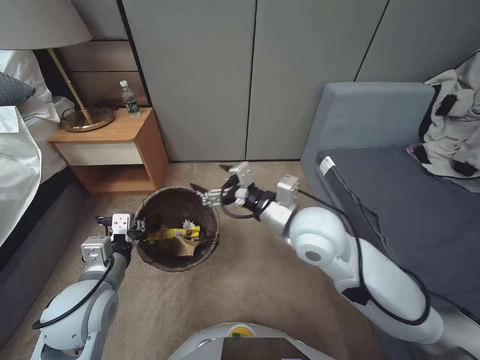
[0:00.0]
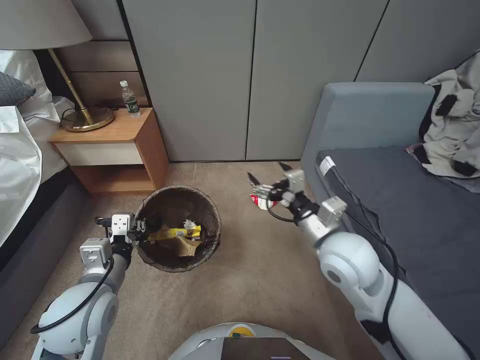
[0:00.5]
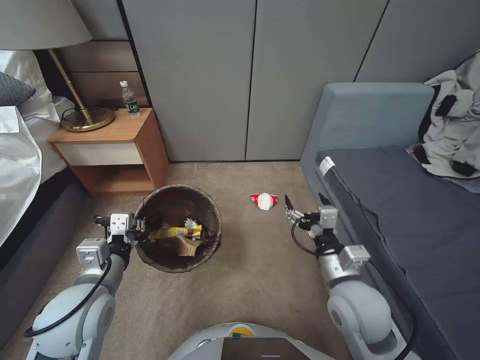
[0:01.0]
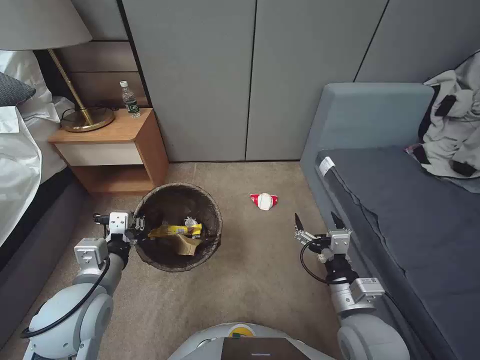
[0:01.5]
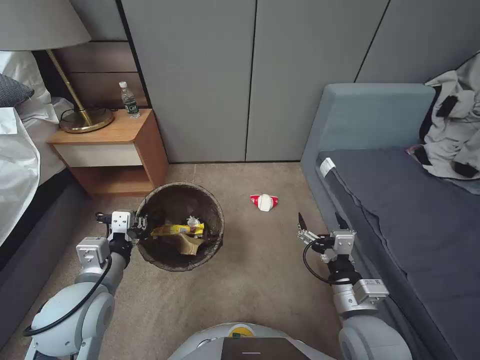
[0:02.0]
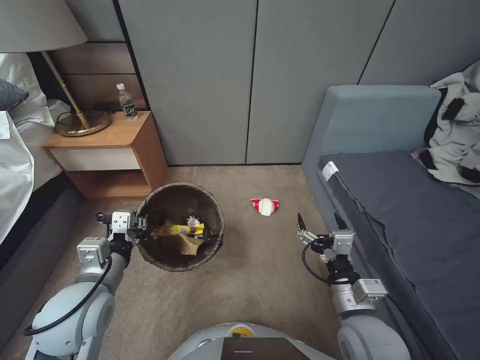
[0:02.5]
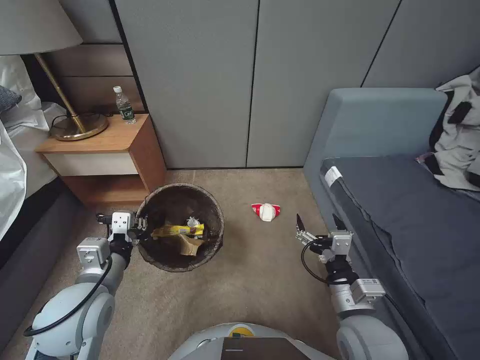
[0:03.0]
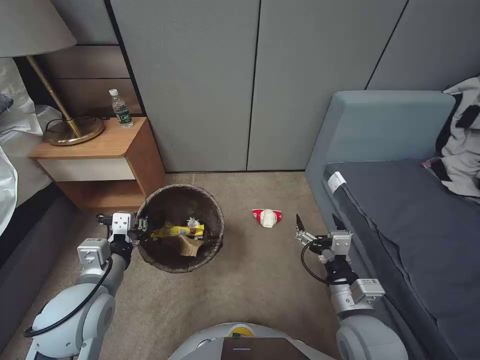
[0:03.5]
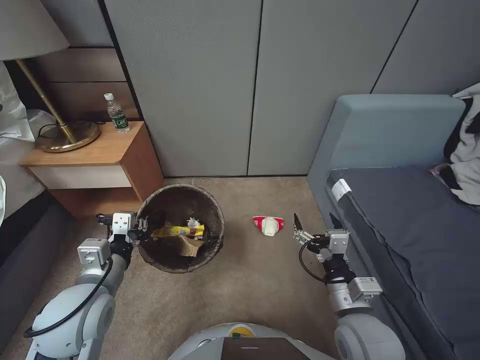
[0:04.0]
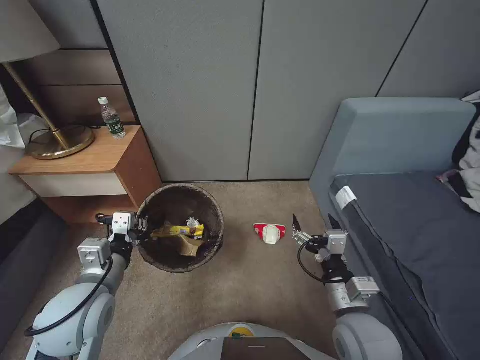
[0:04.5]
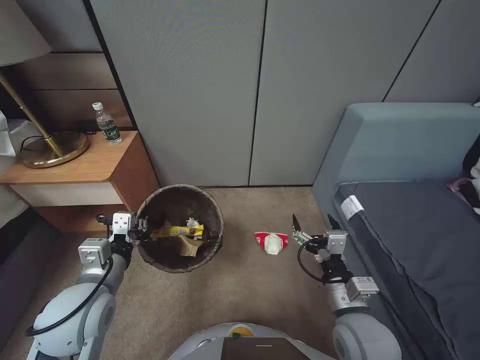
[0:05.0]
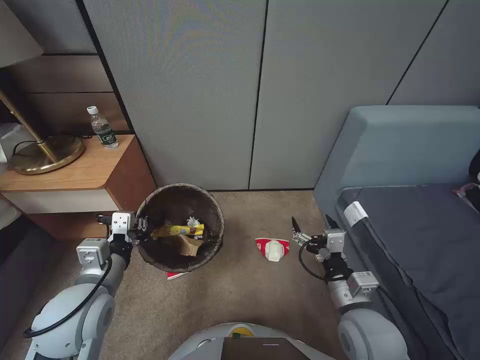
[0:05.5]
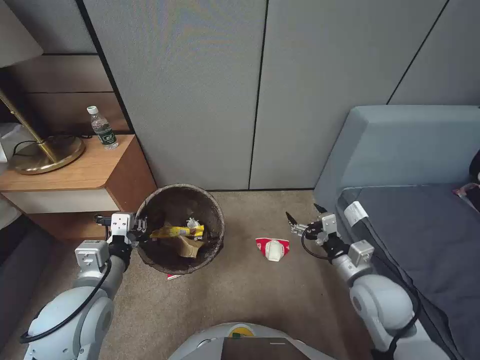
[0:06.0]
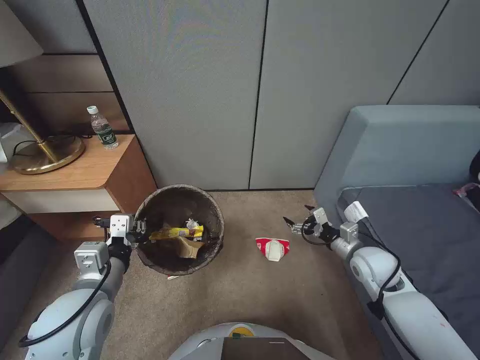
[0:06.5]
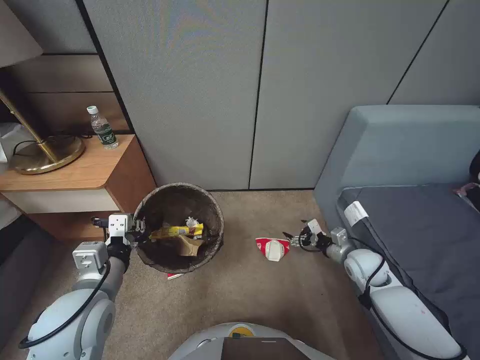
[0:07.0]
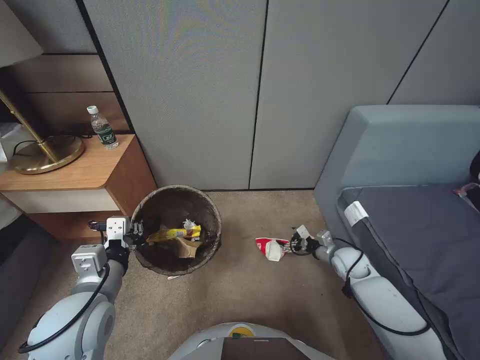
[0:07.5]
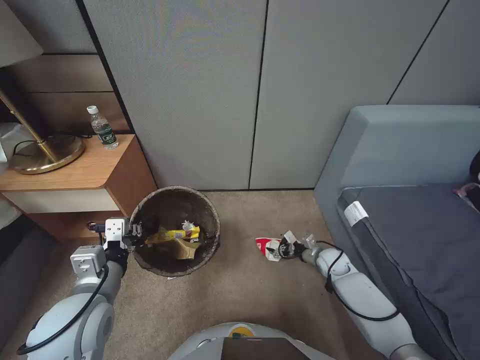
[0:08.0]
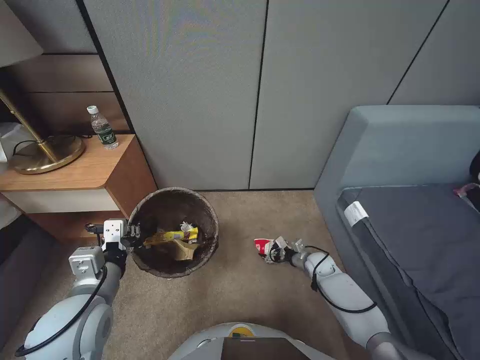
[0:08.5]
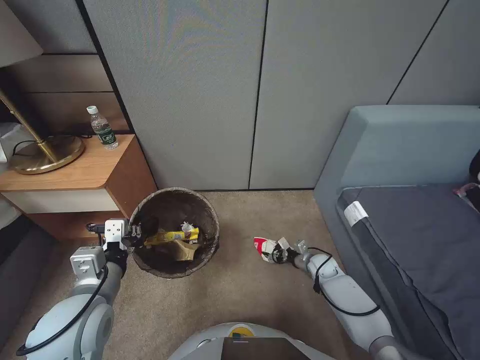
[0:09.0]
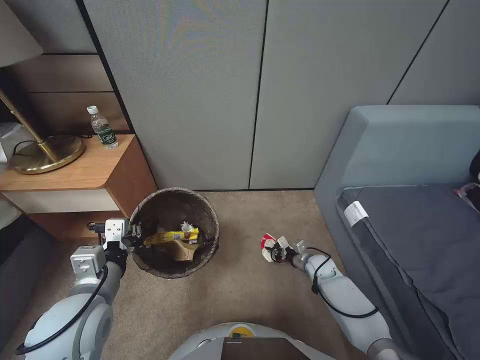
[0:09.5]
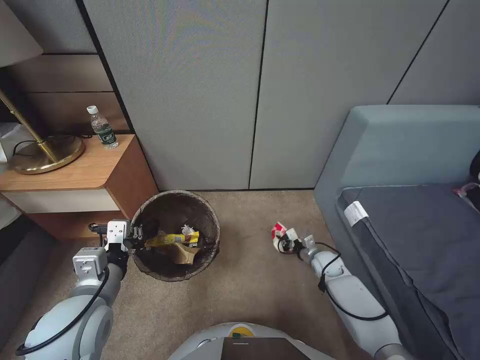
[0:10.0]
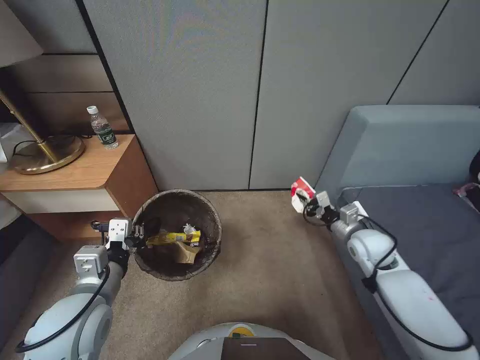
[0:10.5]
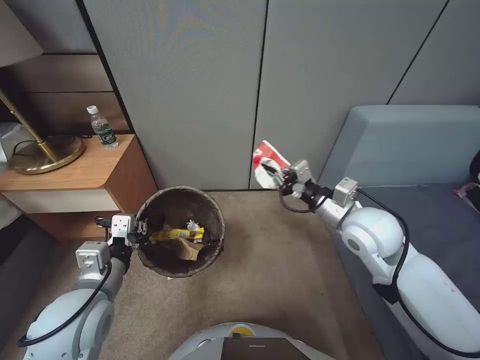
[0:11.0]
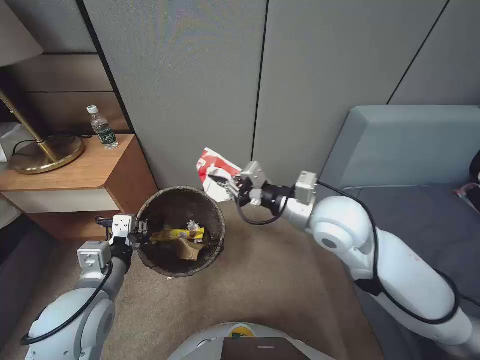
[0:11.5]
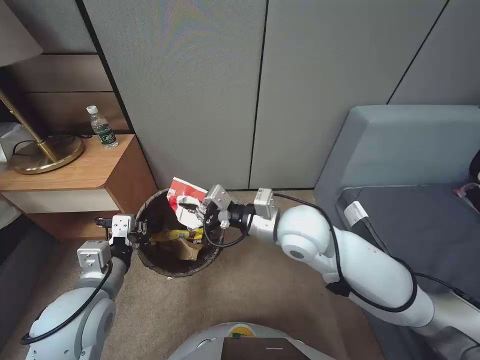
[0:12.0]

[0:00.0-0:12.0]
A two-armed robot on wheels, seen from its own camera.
Task of the whole recording: Pick up the trash bin, then pick up the garbage from the floor and place it into the trash bin.
0.0 to 2.0 s: The right gripper is displaced backward, downward and to the right by some 25 cm.
4.0 to 6.0 s: The right gripper goes some 5 cm forward and to the right.
6.0 to 8.0 s: The right gripper travels downward and forward by roughly 25 cm.
8.0 to 10.0 s: The right gripper closes its fingers.
10.0 to 12.0 s: The right gripper goes approximately 40 cm upward and to the left.

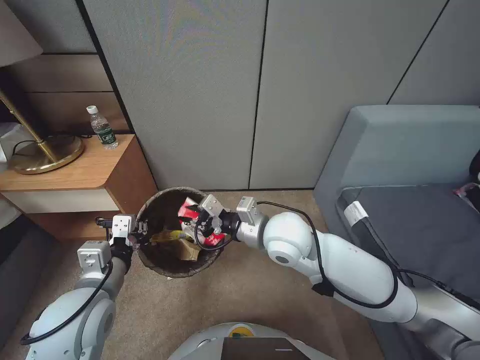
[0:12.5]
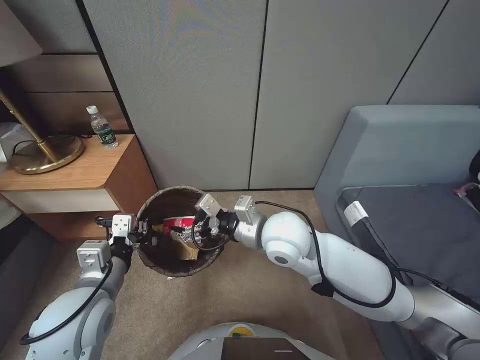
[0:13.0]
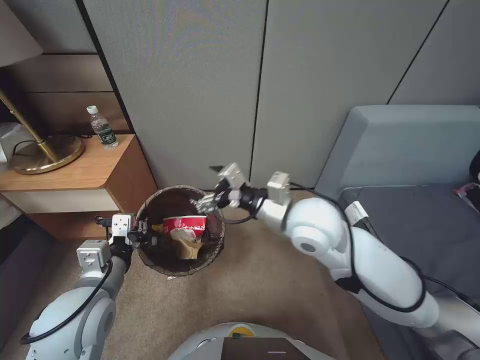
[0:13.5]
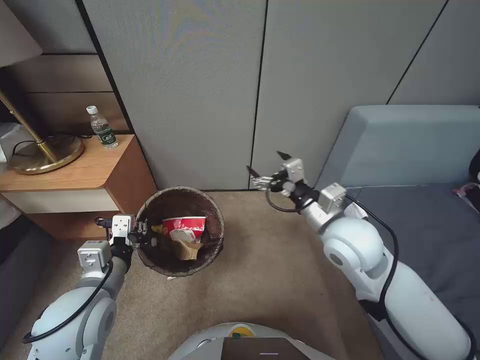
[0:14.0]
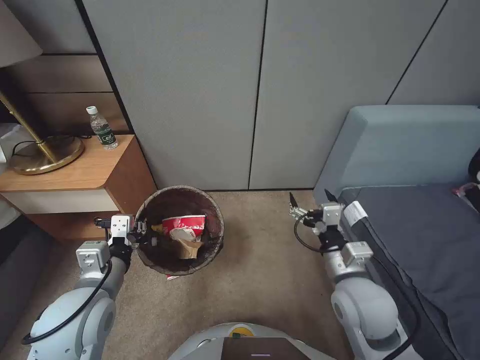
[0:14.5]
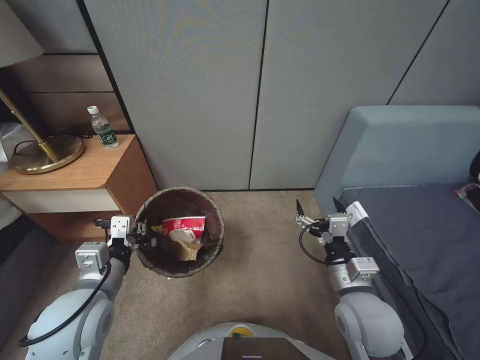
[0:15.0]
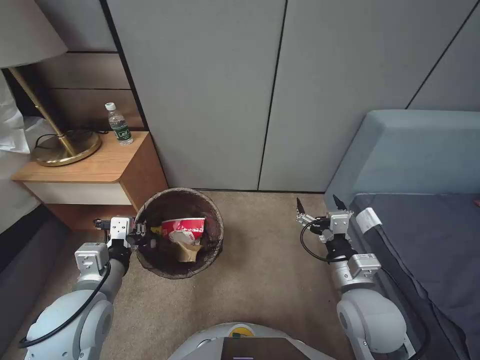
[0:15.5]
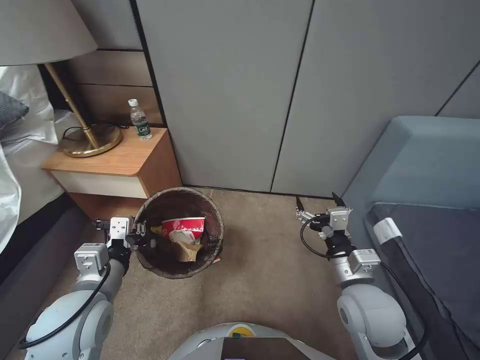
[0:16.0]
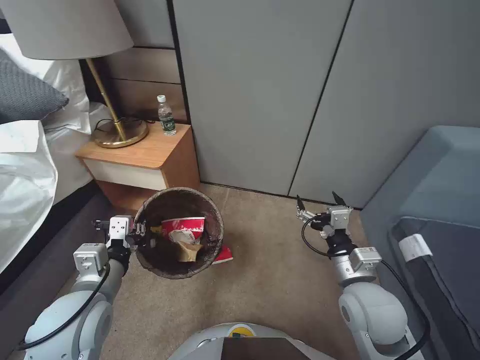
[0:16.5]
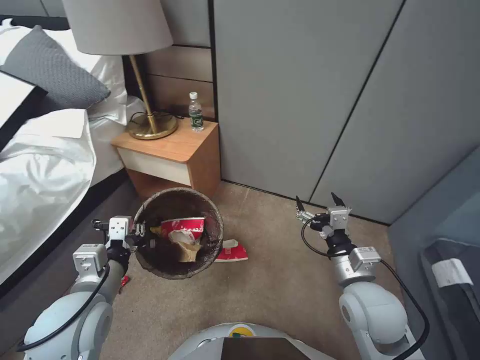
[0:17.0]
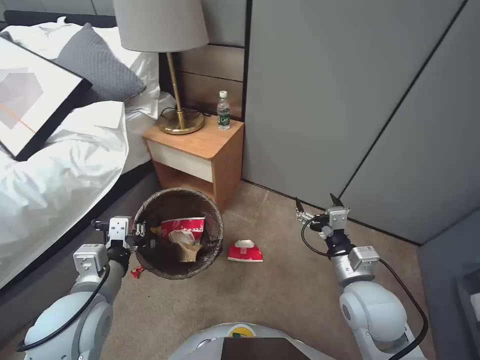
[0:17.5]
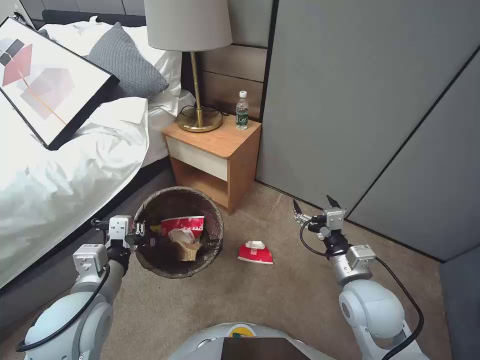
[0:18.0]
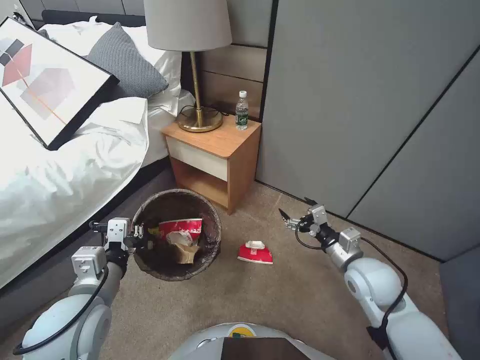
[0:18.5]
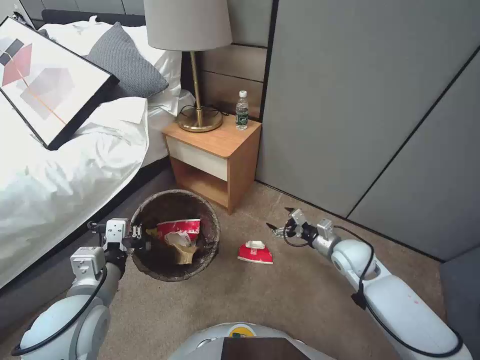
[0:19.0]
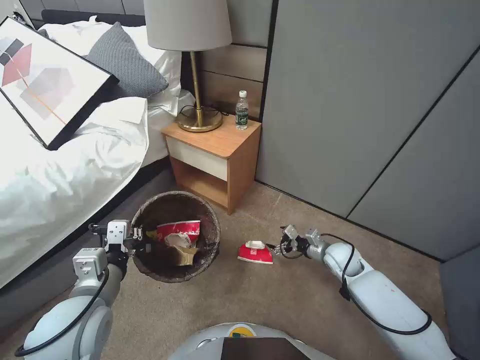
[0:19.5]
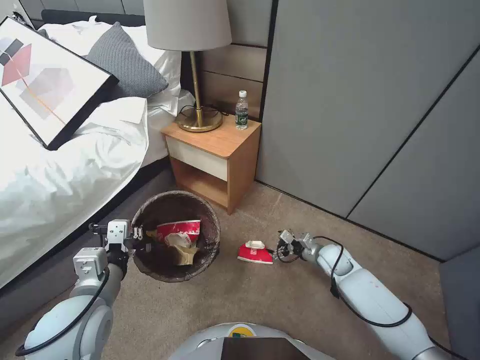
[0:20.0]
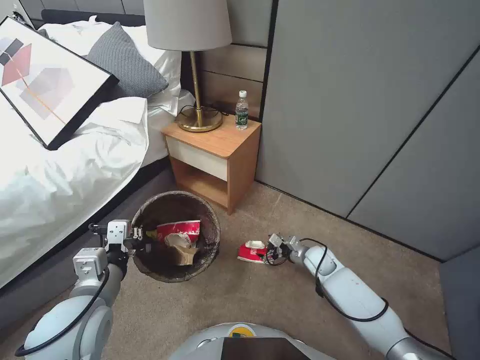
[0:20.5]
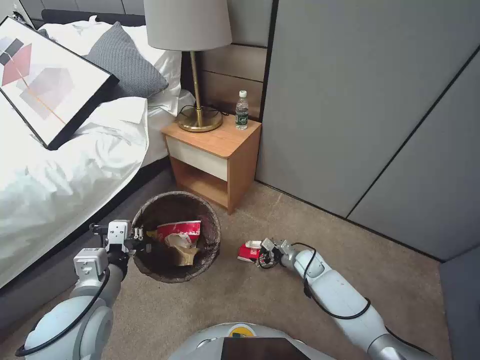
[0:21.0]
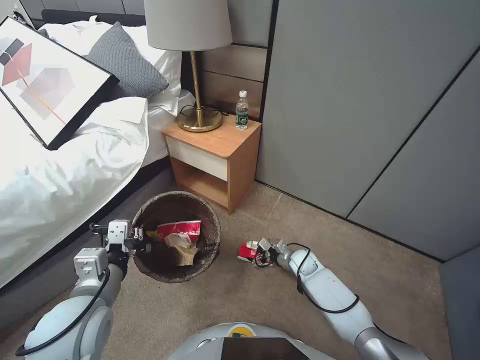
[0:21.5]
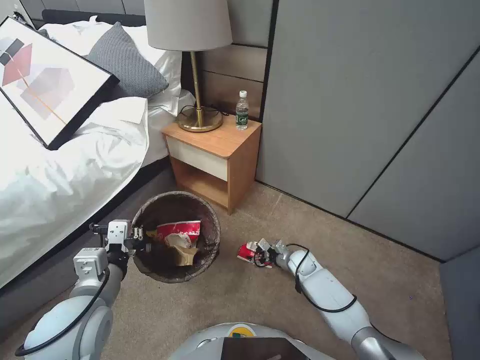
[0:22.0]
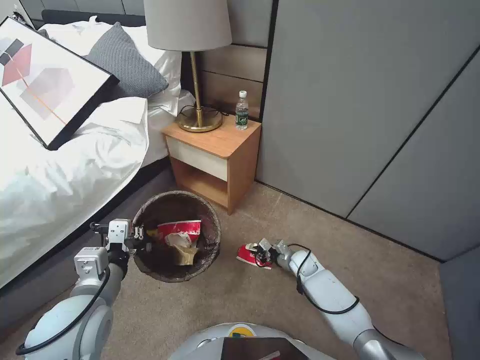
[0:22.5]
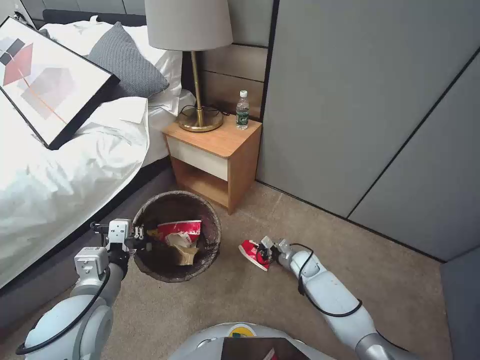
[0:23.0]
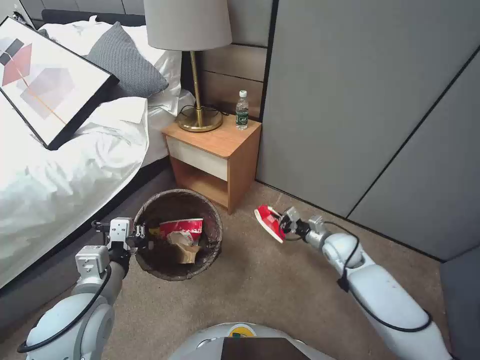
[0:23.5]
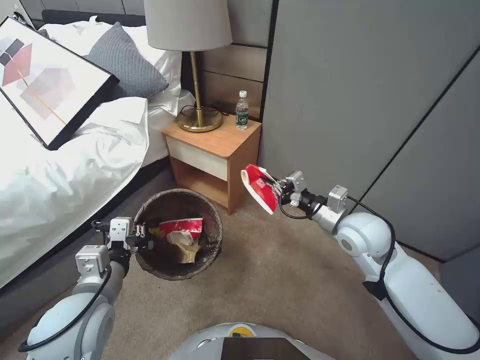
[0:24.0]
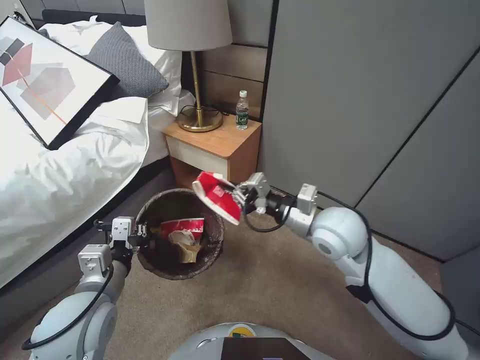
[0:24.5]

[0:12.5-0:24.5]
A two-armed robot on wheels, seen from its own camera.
Task of the whole recording: Pick up the trash bin, then pick up the garbage from the floor and place it into the trash bin.
12.5 to 14.5 s: The right gripper is displaced to the right, backward and downward by roughly 15 cm, and opens.
16.5 to 18.5 s: The right gripper moves forward, roughly 5 cm.
18.5 to 20.5 s: The right gripper travels downward and forward by approximately 20 cm.
20.5 to 22.5 s: The right gripper heads downward, covering some 5 cm, and closes up.
22.5 to 24.5 s: The right gripper heads upward, covering some 35 cm.

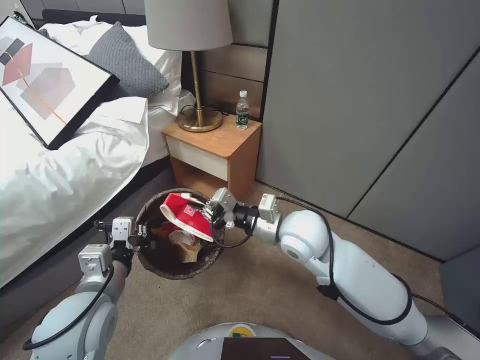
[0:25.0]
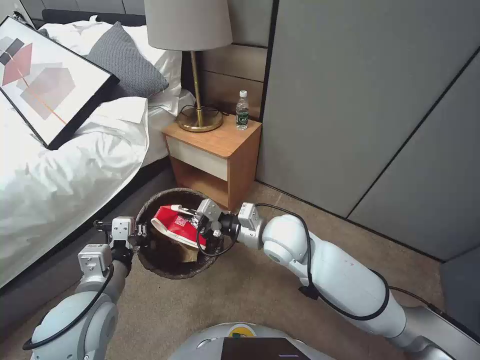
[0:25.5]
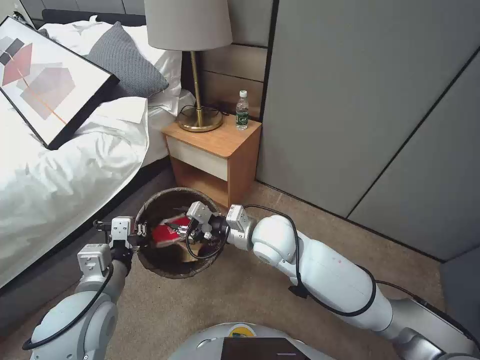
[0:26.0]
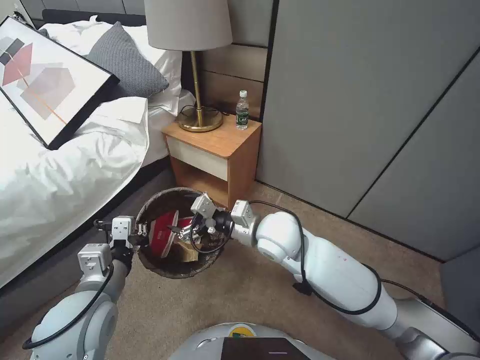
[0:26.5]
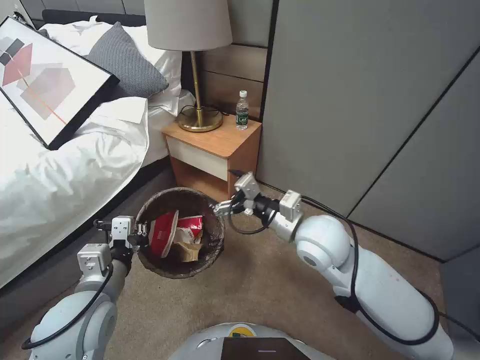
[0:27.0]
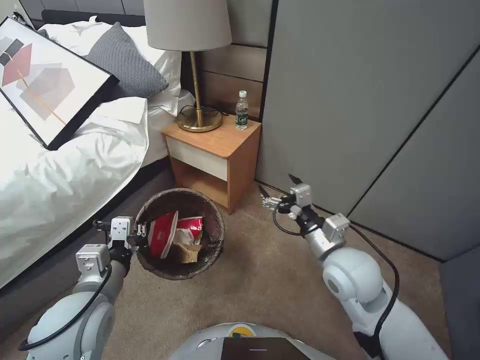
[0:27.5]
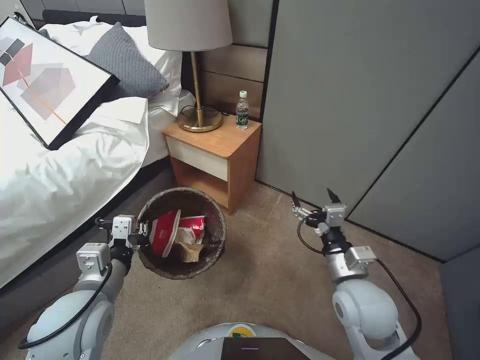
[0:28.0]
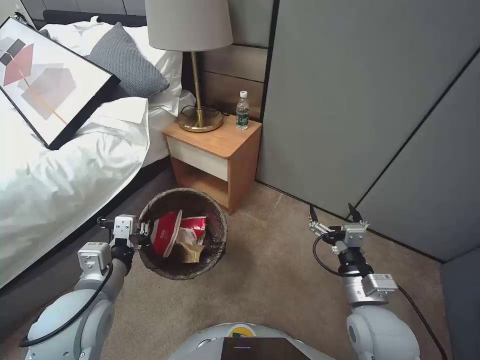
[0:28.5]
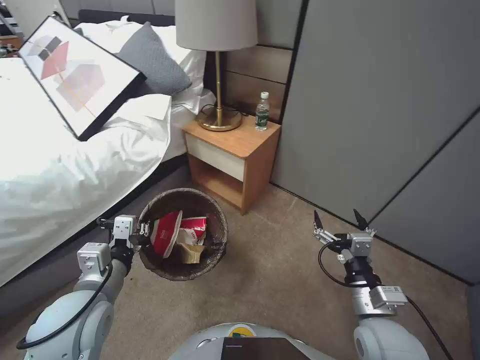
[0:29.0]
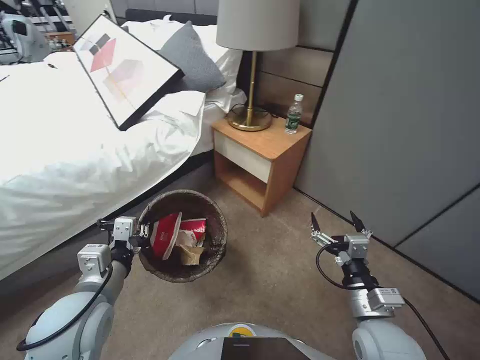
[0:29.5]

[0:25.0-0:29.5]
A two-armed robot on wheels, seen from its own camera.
Task of the whole recording: Pick up the trash bin, then pick up the garbage from the floor and place it into the trash bin.
25.0 to 27.0 s: The right gripper opens up.
27.0 to 29.5 s: The right gripper is displaced backward, downward and to the right by approximately 25 cm.
